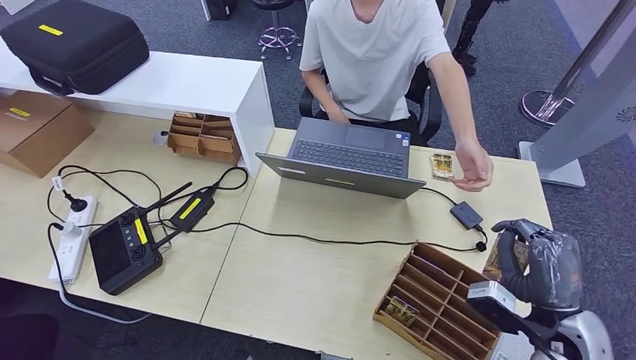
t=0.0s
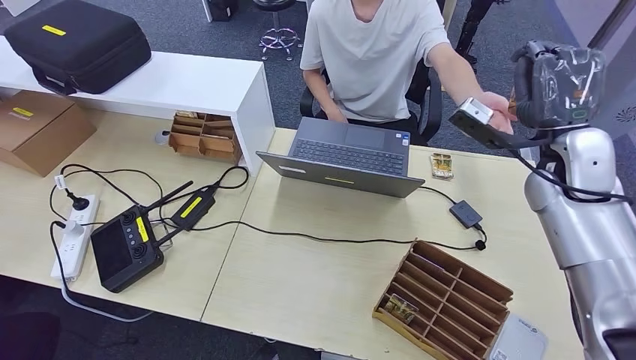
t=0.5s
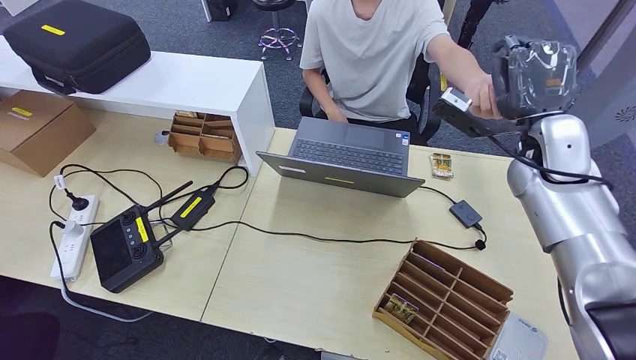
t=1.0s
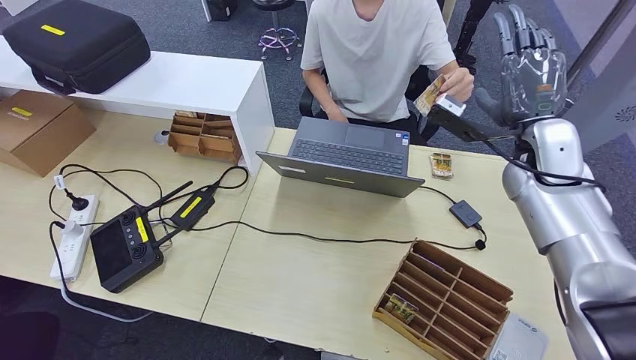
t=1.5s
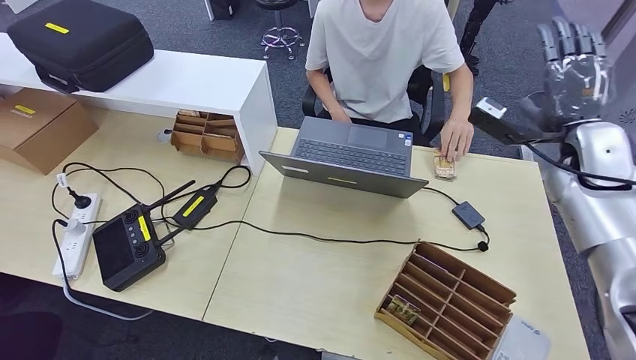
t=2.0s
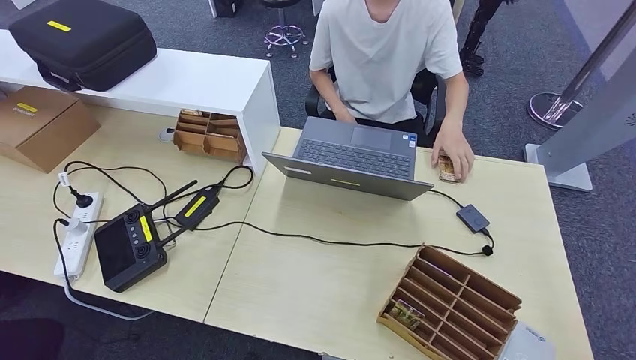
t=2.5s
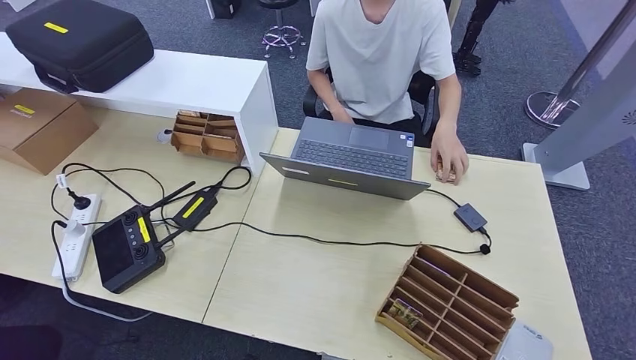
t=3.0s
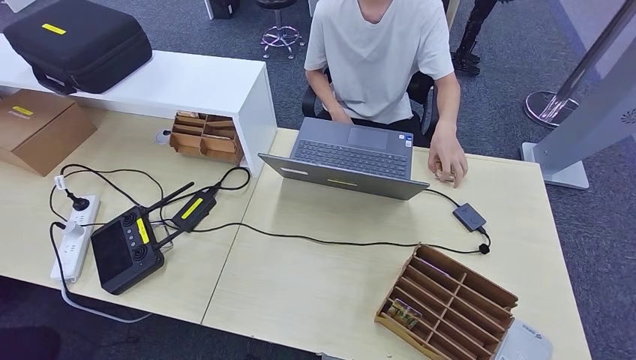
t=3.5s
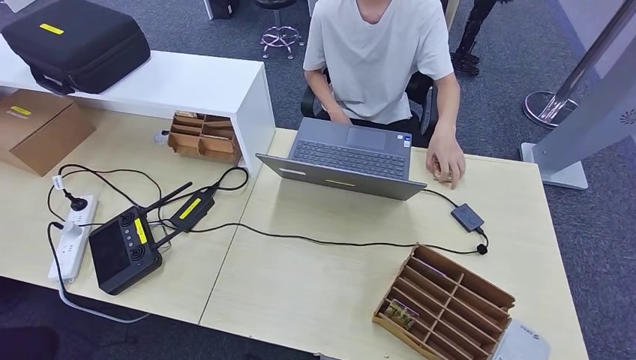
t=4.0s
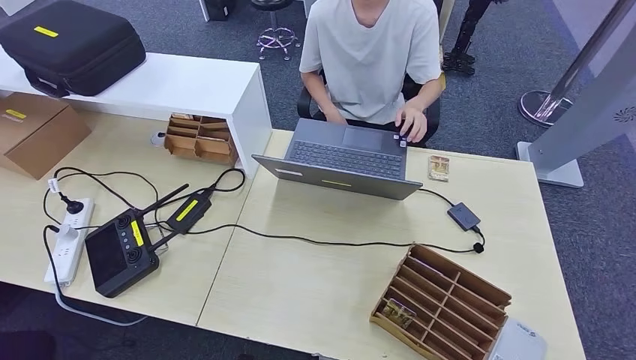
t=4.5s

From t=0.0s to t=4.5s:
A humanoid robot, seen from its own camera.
Step, from t=0.5s to t=4.5s: Hand the room key to the person.
